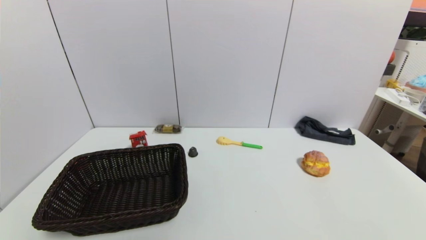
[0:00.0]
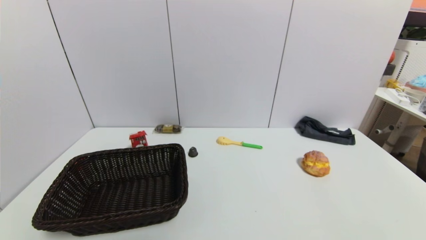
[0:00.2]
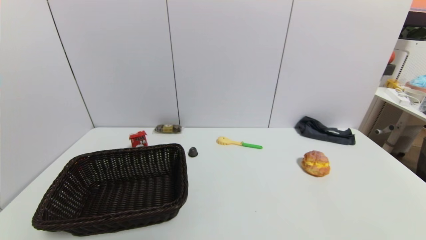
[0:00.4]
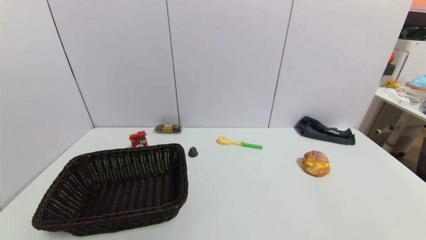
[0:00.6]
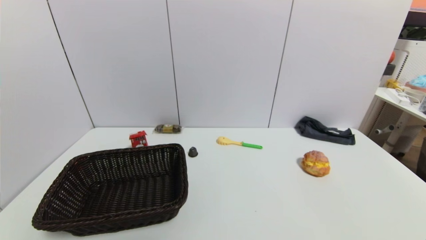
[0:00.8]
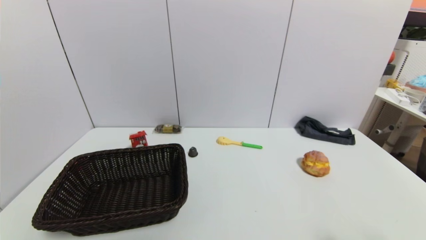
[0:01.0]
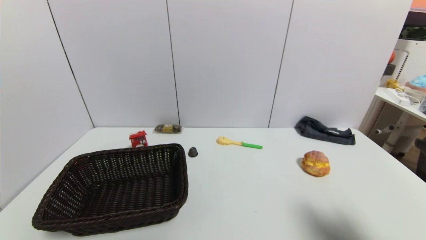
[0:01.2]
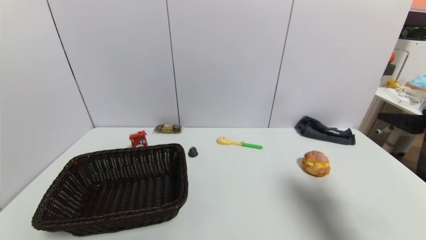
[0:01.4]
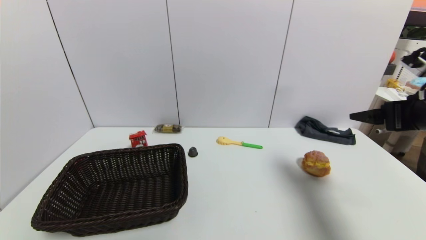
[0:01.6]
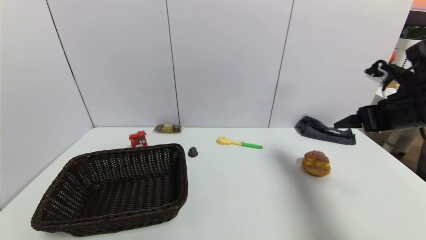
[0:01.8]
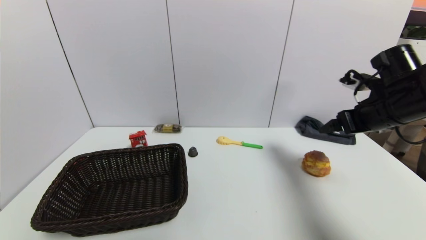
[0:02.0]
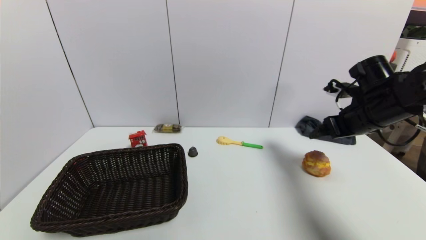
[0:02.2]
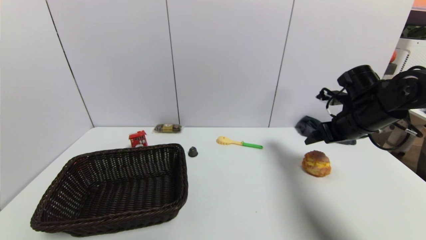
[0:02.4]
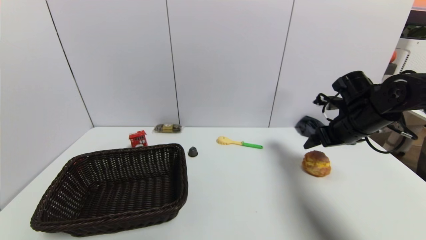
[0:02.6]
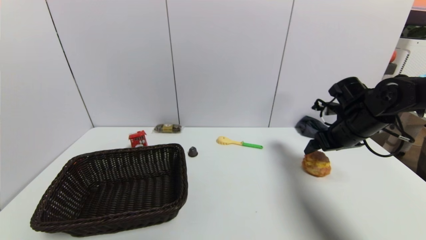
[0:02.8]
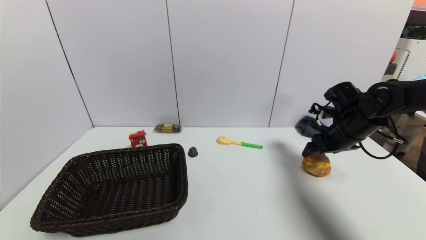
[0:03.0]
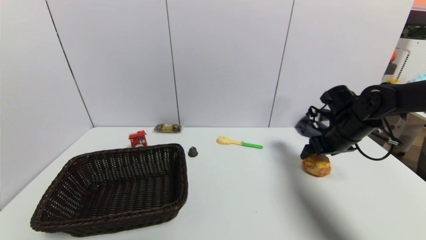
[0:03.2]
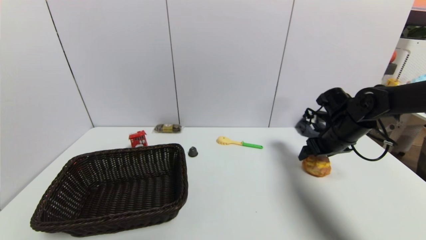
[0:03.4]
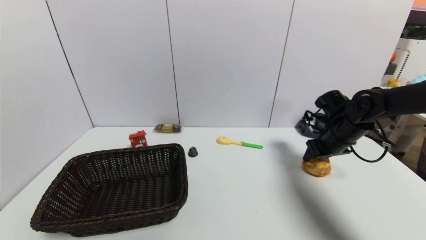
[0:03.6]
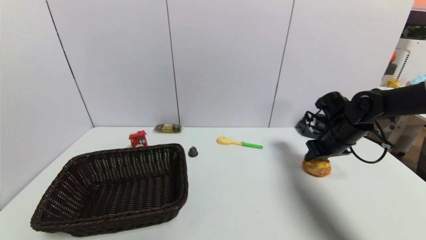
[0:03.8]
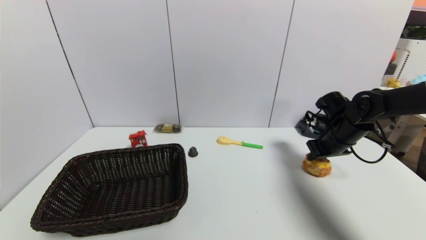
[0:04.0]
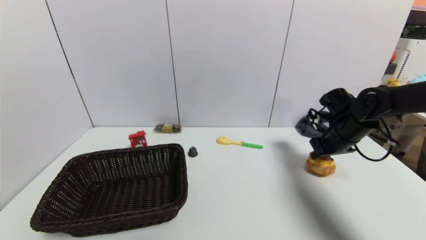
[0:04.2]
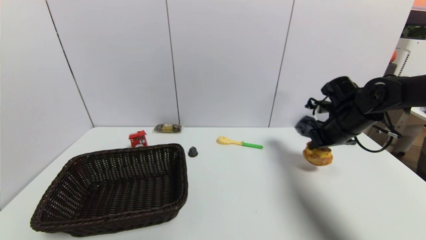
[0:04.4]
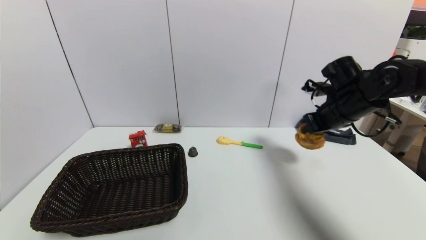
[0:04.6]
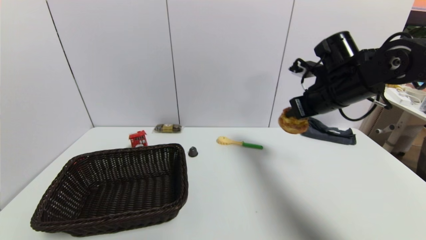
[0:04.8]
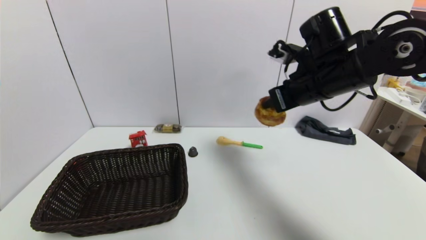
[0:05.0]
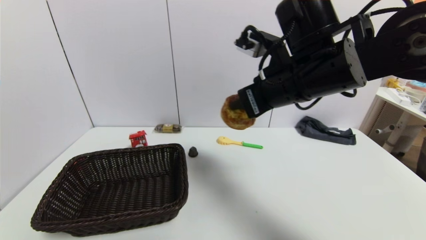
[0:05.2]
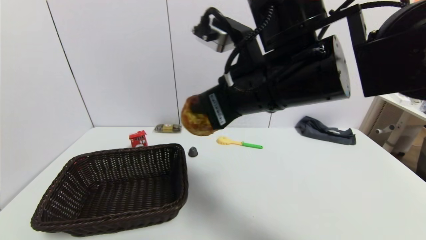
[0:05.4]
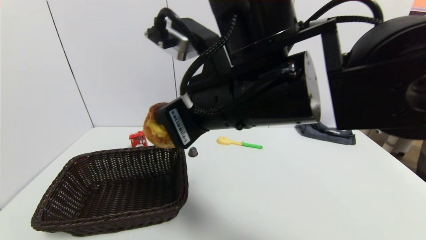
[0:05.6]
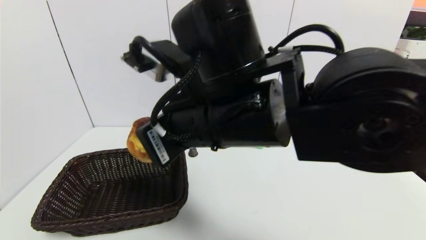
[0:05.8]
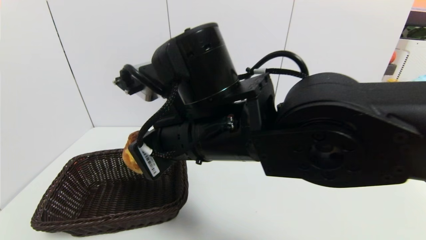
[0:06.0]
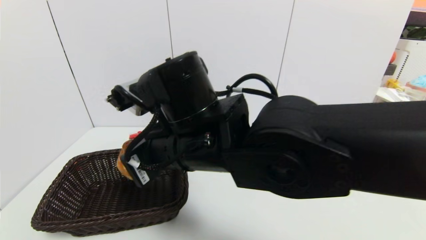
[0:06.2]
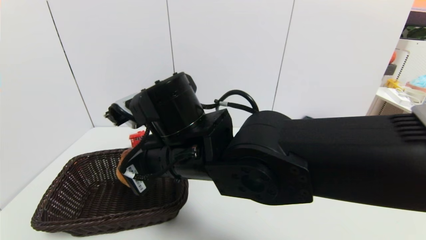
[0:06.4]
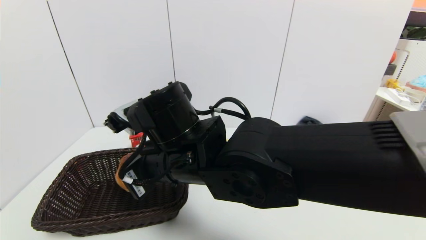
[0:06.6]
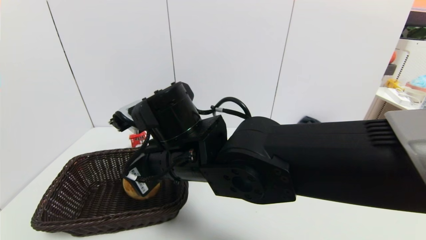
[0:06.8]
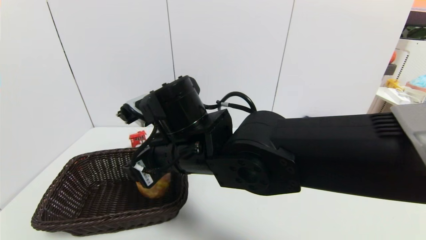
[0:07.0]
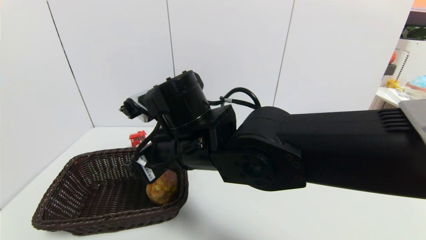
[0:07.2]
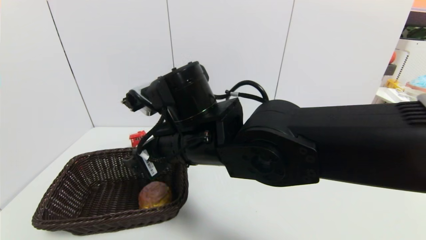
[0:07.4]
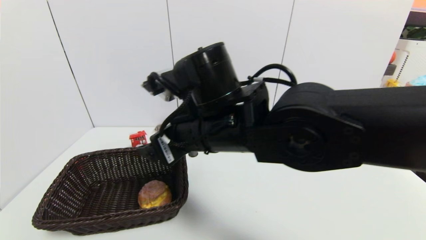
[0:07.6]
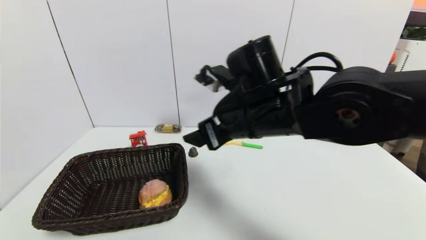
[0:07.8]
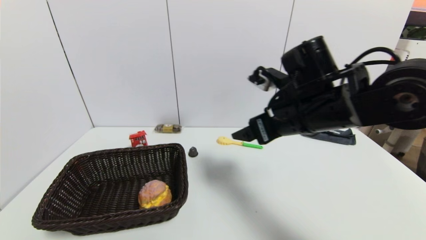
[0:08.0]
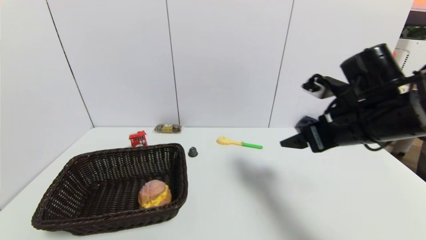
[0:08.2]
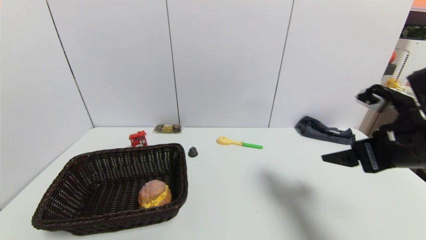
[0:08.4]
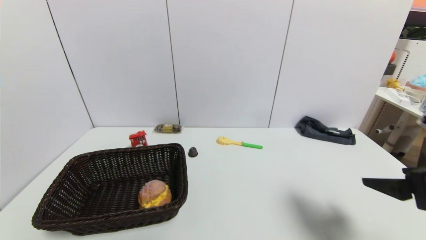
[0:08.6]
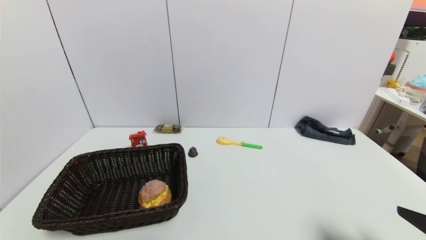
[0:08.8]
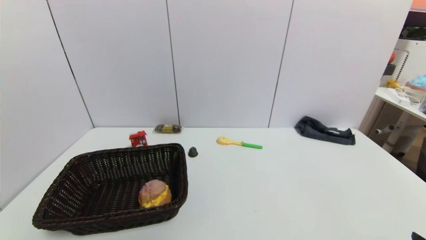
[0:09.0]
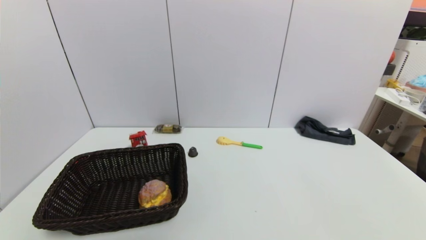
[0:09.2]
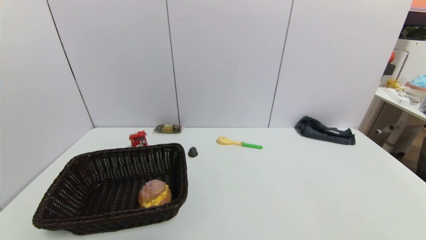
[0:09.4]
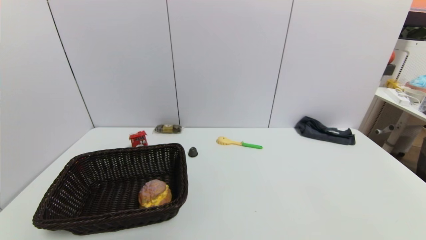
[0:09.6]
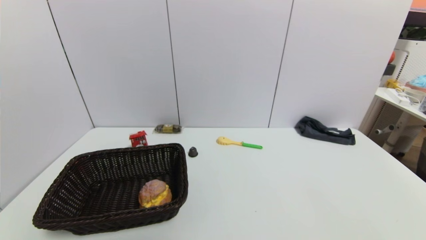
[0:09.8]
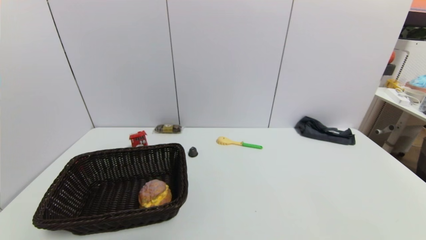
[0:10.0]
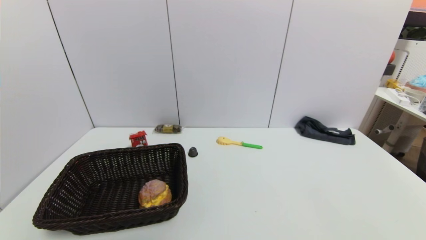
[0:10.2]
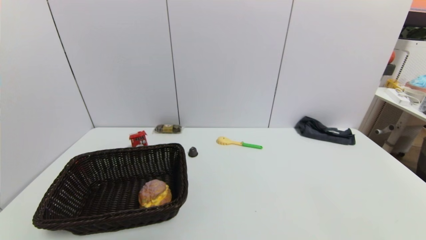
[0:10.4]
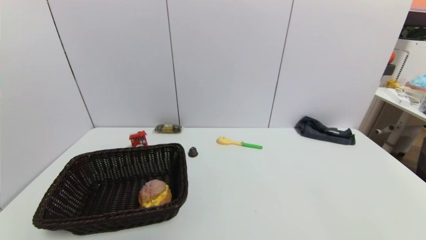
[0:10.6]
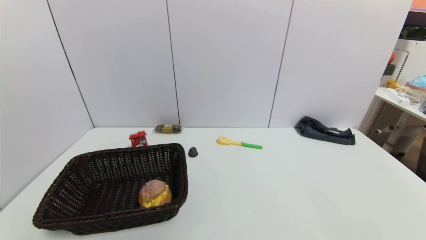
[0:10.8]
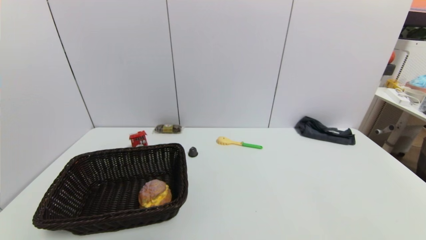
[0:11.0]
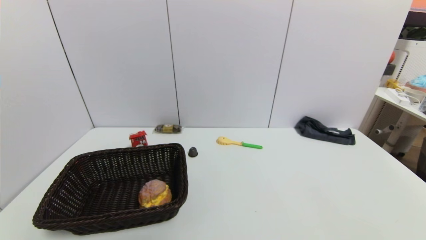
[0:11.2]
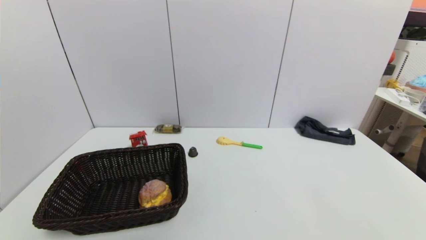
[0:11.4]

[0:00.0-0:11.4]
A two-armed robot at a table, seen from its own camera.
Task of the whole recording: use a gripper to pick the target object and place on the brown basket.
Step, 0:00.0 to 0:04.0: Grasp the round bread with the right gripper.
Step, 0:04.2 to 0:07.6: Place the round bread into the basket with the right gripper.
0:00.0 to 0:01.4: The right gripper heads upward and forward, covering roughly 25 cm.
0:01.4 to 0:02.8: The right gripper goes roughly 20 cm forward and downward.
0:02.8 to 0:04.2: The right gripper closes up.
0:04.2 to 0:05.6: The right gripper goes some 35 cm to the left, upward and backward.
0:05.6 to 0:07.2: The right gripper shifts roughly 10 cm downward and to the left, and opens its fingers.
0:07.2 to 0:08.6: The right gripper goes about 35 cm to the right.
0:08.6 to 0:10.0: The right gripper heads downward and backward, covering approximately 20 cm.
0:10.0 to 0:11.4: The two grippers keep their place.
